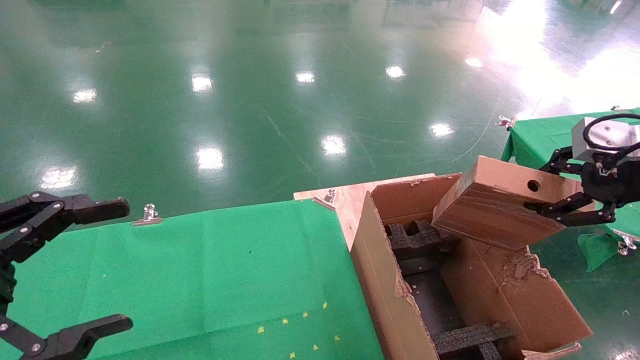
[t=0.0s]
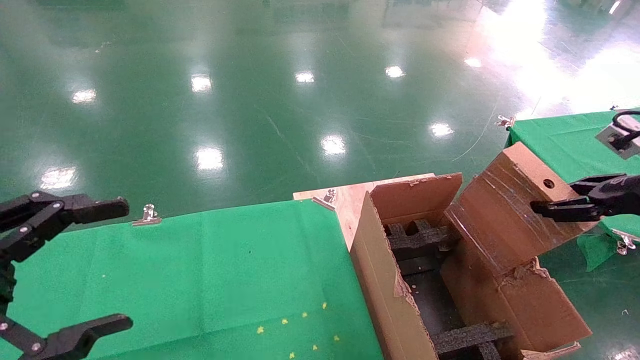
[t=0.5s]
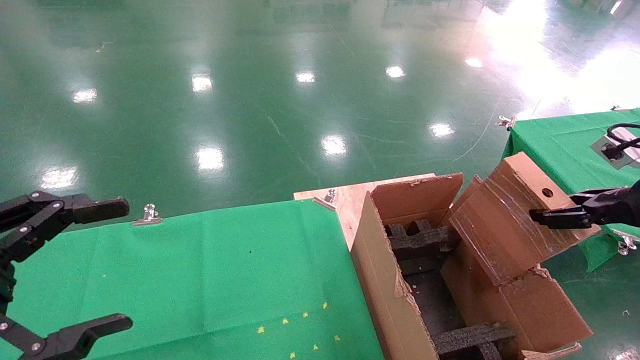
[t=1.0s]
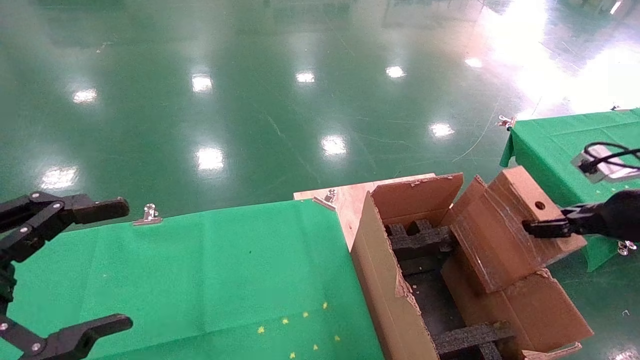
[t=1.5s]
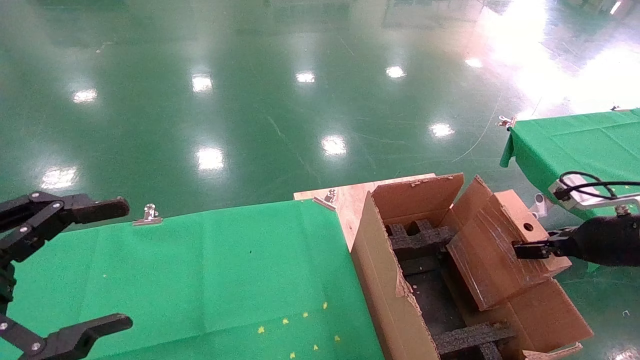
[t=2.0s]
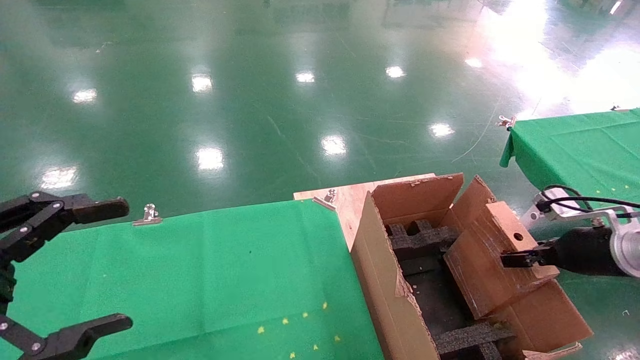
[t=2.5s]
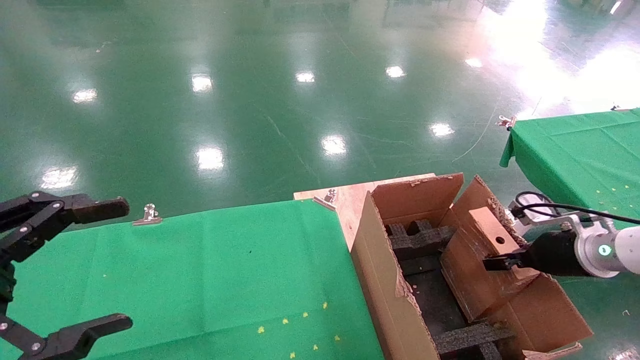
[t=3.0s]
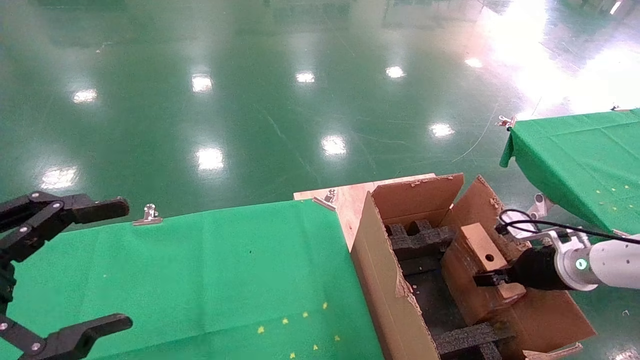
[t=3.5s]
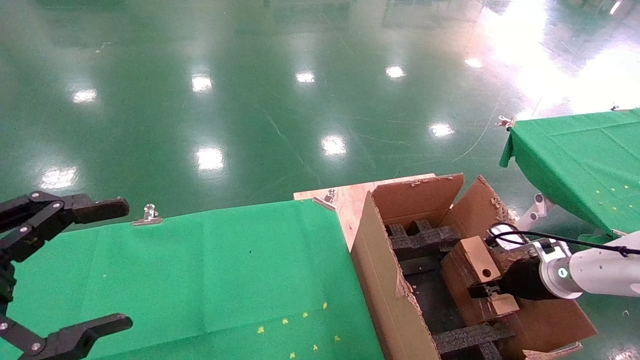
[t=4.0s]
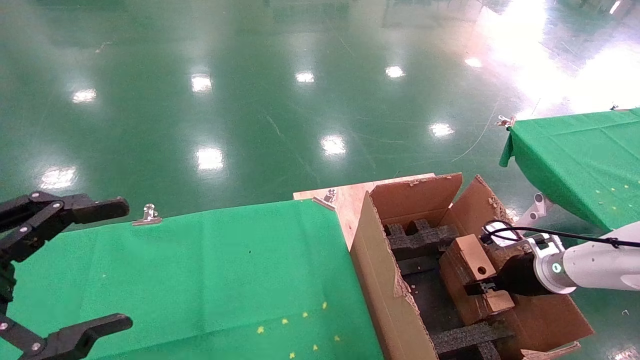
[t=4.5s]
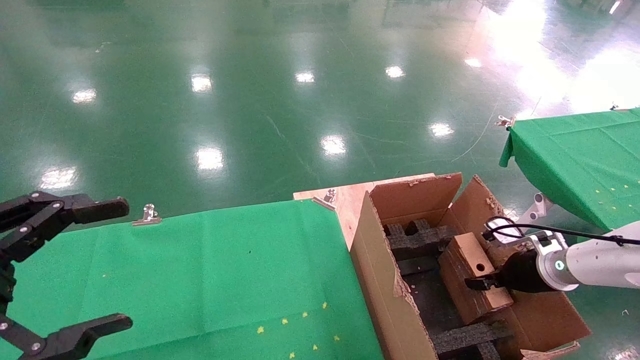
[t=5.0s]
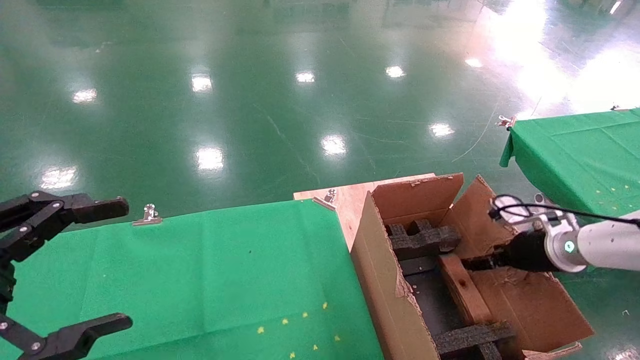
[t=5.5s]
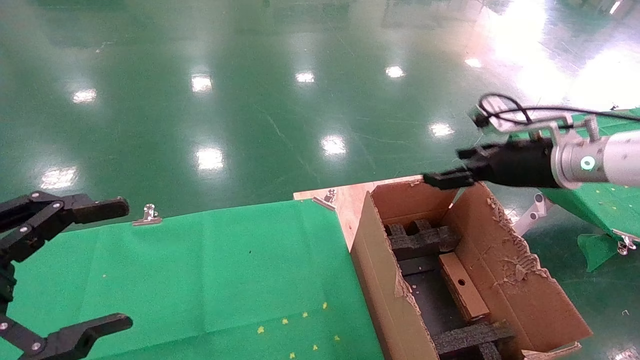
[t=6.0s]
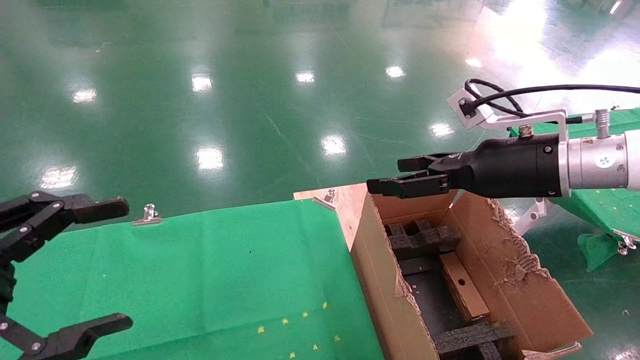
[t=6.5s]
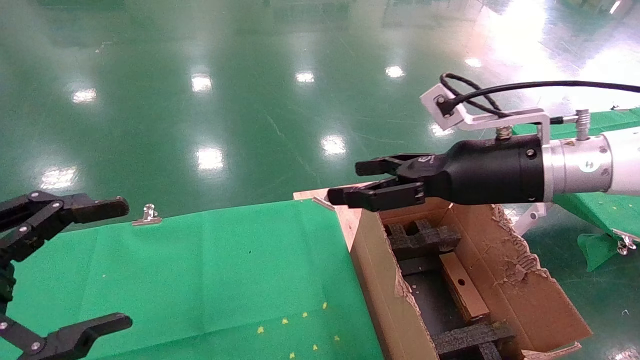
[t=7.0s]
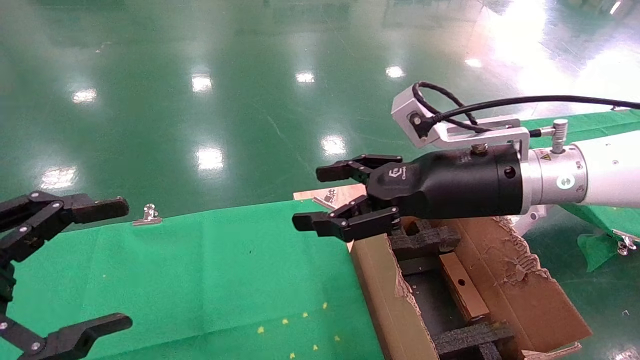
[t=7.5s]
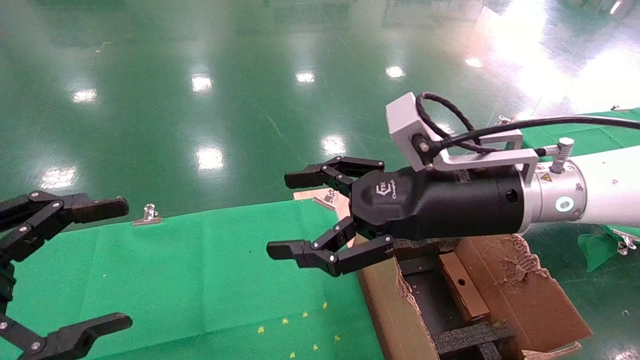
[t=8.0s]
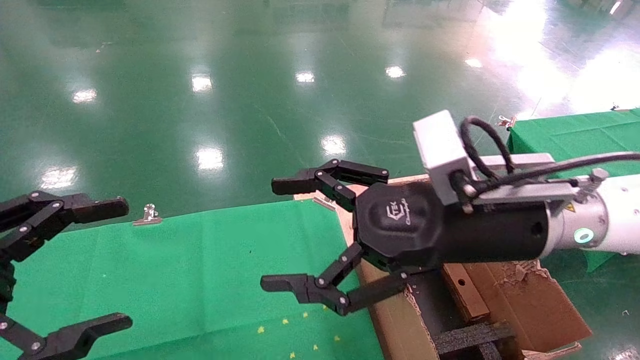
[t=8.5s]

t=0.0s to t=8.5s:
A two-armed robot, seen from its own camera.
Task of the whole recording: using a robotic arm to pick up a cardboard box and palace it the carton.
Step, t=0.0s to t=5.5s: Place the mouse and the power cord paper box into the container.
t=0.0s to t=2.0s: The right gripper heads downward, covering about 15 cm.
t=2.0s to t=4.0s: The right gripper moves downward and forward, about 15 cm.
t=4.0s to t=6.5s: The right gripper heads upward and to the left, covering roughly 25 cm, and opens its fingers.
t=6.5s to t=8.5s: The right gripper is displaced to the left and backward by roughly 15 cm.

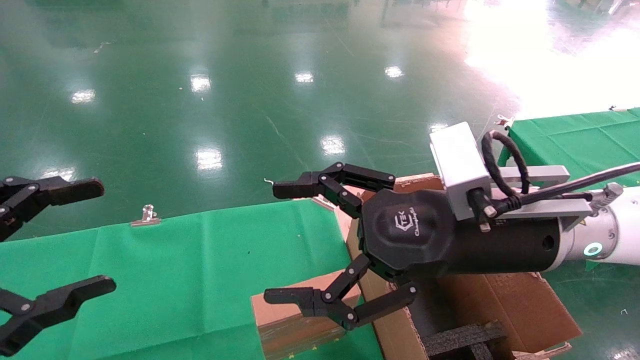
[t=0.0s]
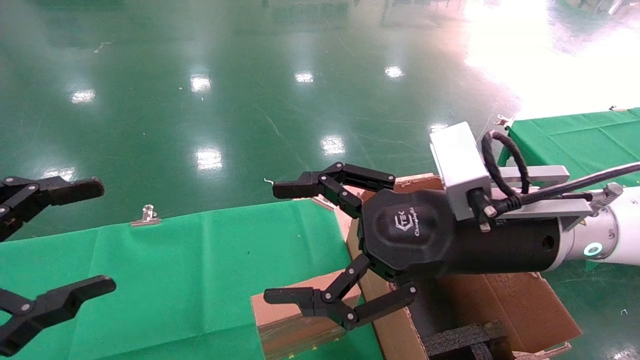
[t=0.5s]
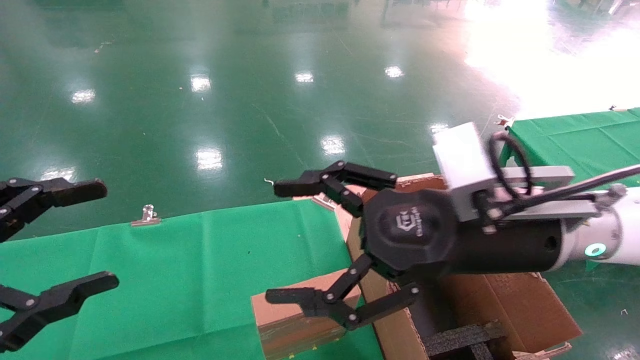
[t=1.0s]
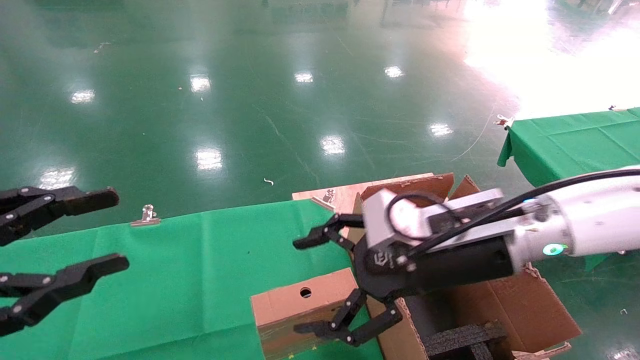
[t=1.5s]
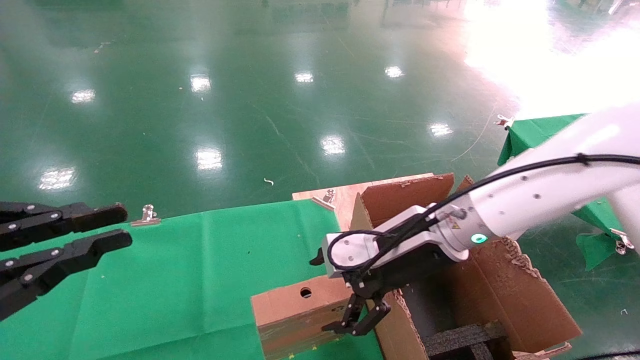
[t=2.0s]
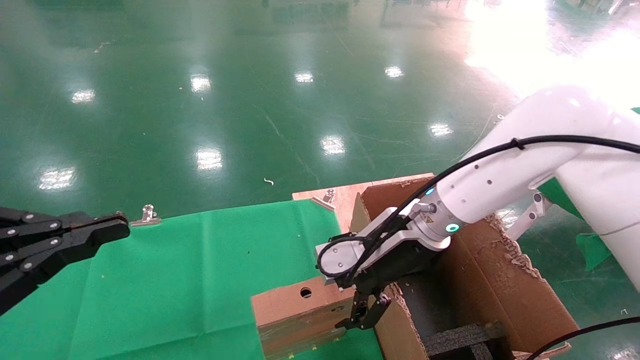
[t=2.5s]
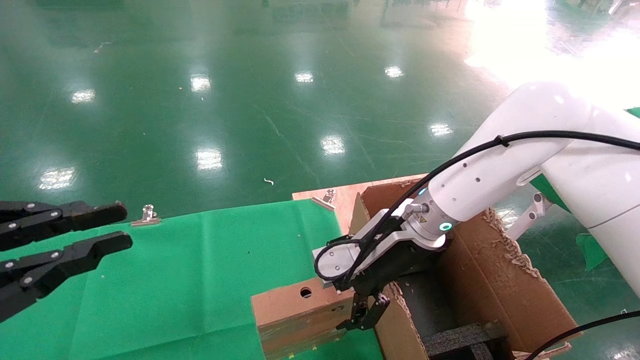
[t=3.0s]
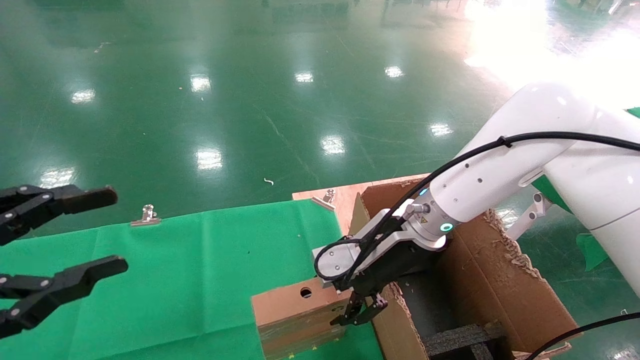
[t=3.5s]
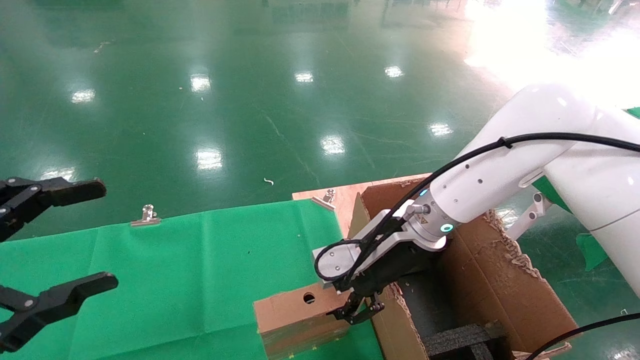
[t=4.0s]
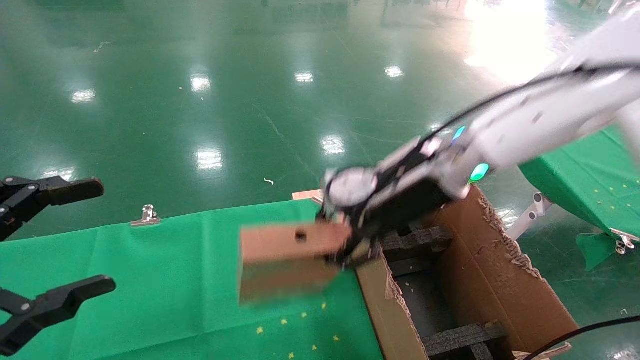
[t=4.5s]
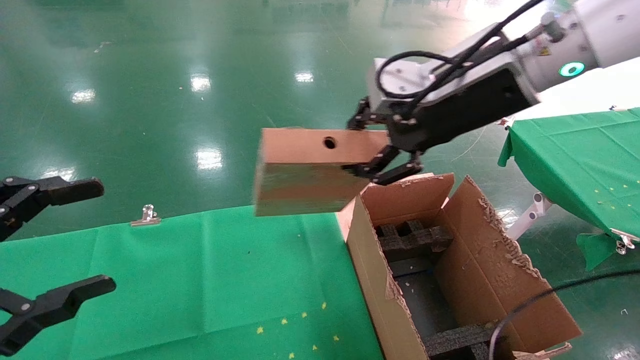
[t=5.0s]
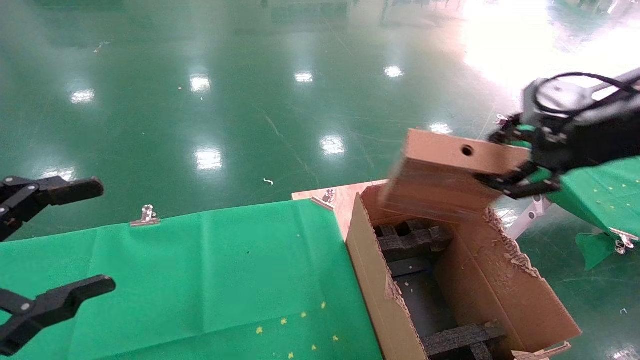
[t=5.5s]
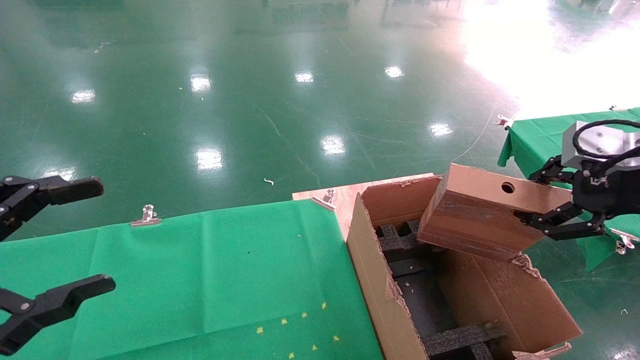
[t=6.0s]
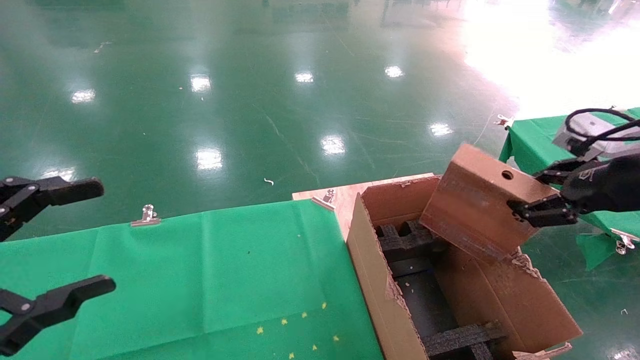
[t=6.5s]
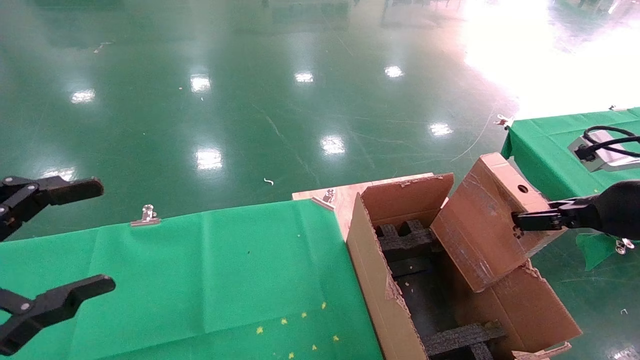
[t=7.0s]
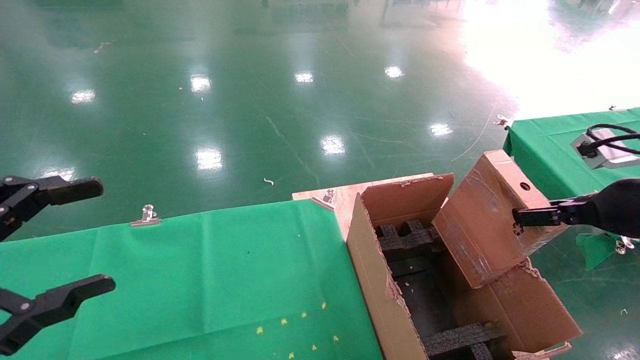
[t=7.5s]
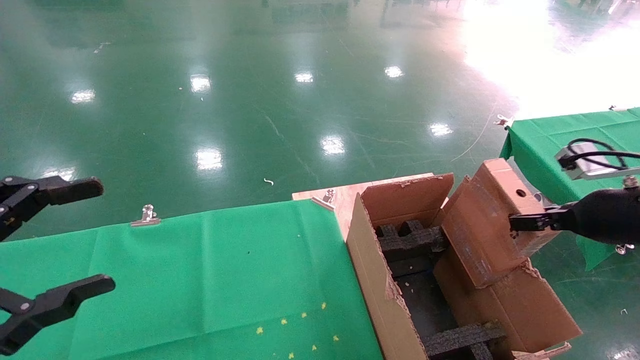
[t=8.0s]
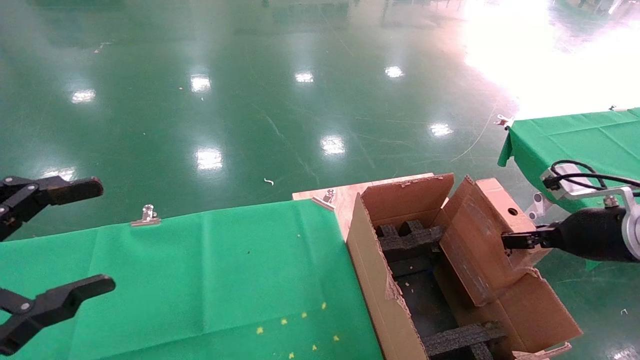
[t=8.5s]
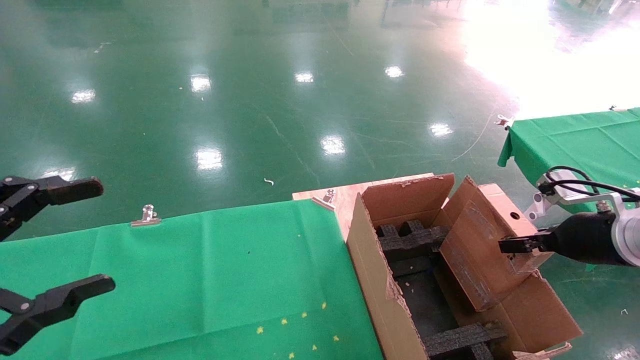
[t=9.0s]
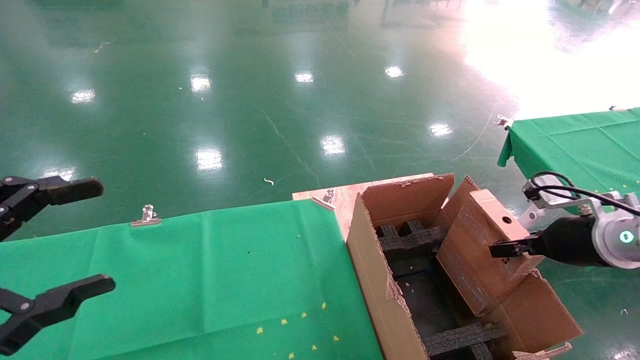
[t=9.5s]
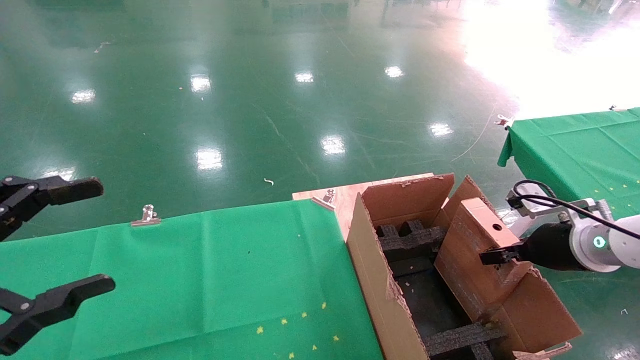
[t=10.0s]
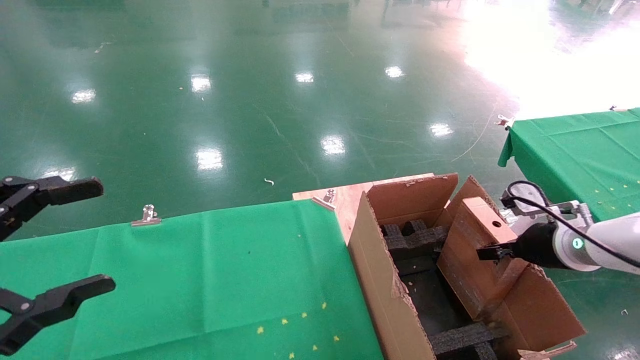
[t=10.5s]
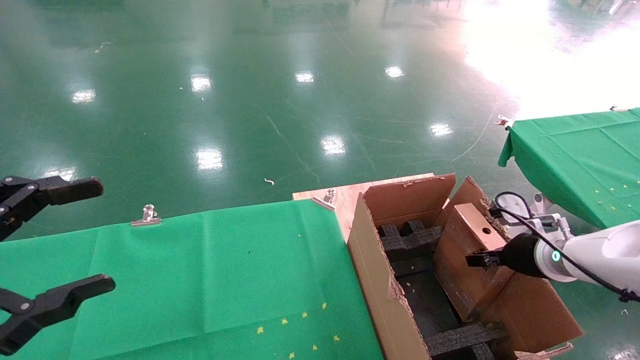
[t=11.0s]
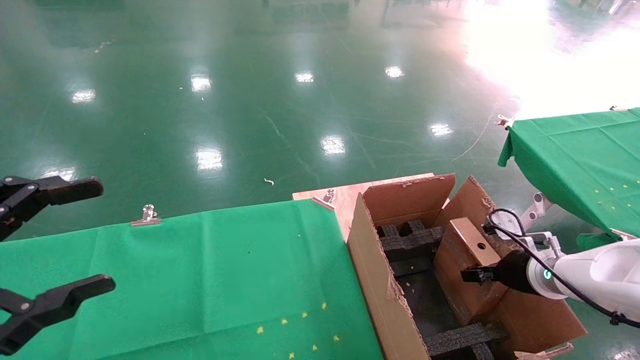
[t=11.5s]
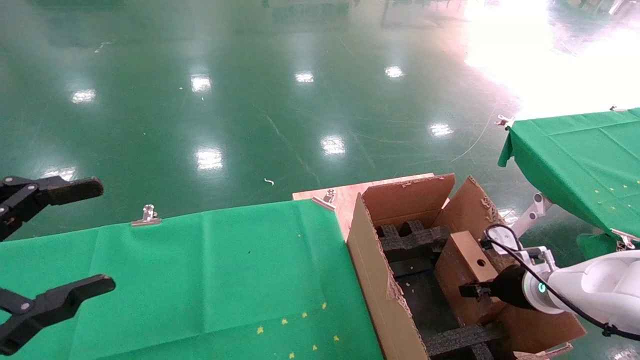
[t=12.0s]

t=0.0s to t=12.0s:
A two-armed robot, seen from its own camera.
Task of the whole recording: using a robotic arm to pick up a cardboard box and palace it the carton.
Step, t=1.5s to t=3.5s: Pick up the mouse and the power cord paper box.
t=0.0s to t=2.0s: The left gripper closes its fingers; the right gripper heads forward and downward, covering roughly 10 cm.
t=2.0s to t=4.0s: The left gripper opens its fingers, while the right gripper closes its fingers.
t=4.0s to t=6.0s: The right gripper goes some 30 cm to the right, backward and upward.
t=6.0s to t=8.0s: The right gripper travels downward by about 10 cm.
t=8.0s to t=10.0s: The right gripper travels downward and forward by roughly 10 cm.
t=10.0s to t=12.0s: The right gripper travels downward by roughly 10 cm.
